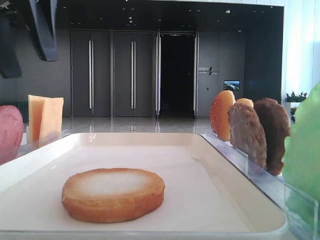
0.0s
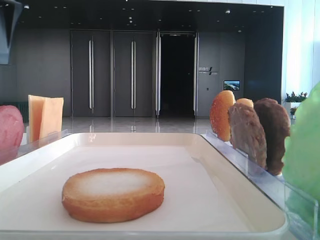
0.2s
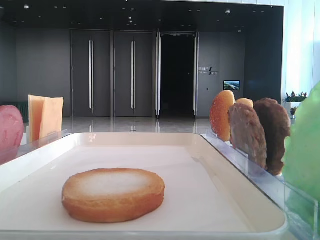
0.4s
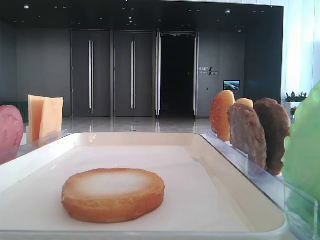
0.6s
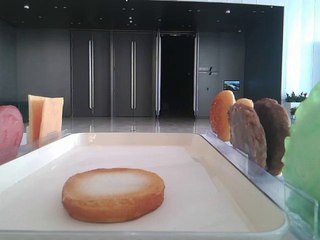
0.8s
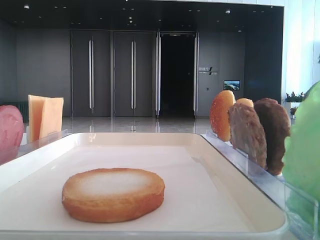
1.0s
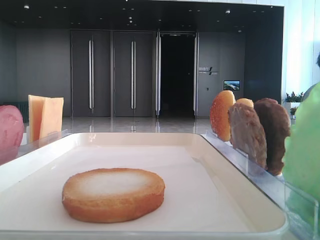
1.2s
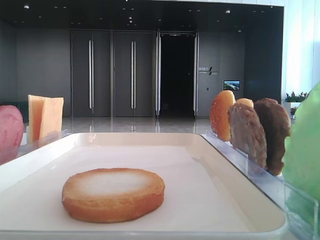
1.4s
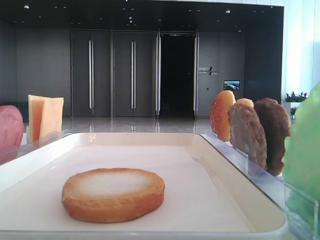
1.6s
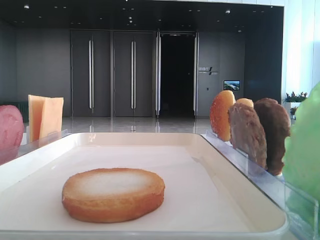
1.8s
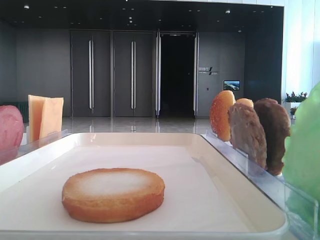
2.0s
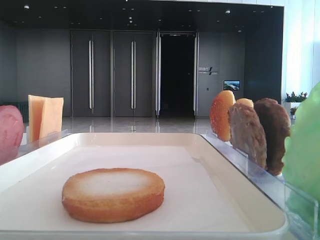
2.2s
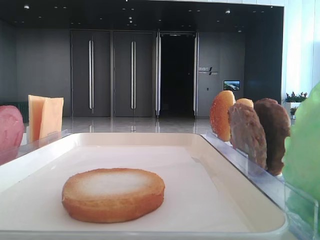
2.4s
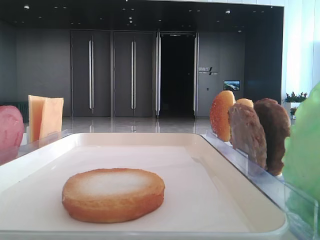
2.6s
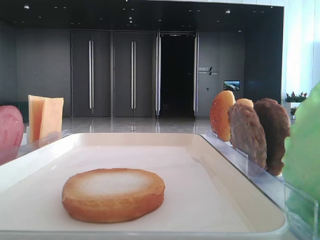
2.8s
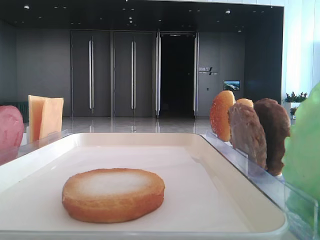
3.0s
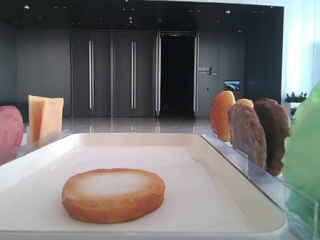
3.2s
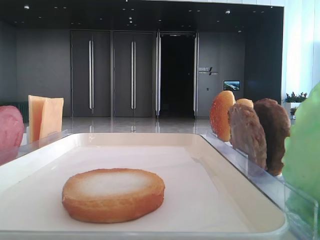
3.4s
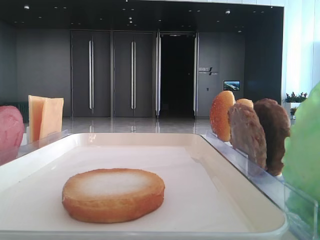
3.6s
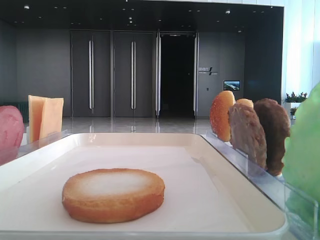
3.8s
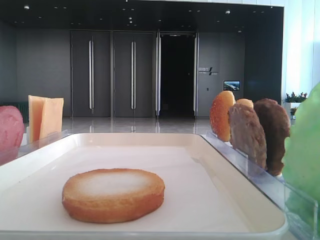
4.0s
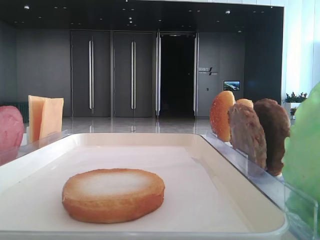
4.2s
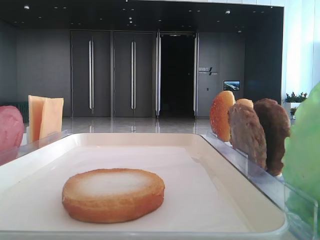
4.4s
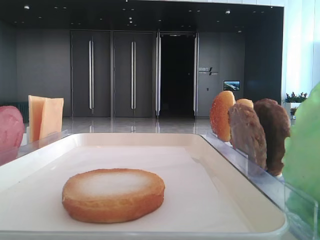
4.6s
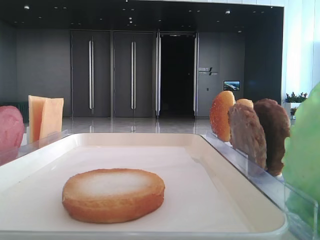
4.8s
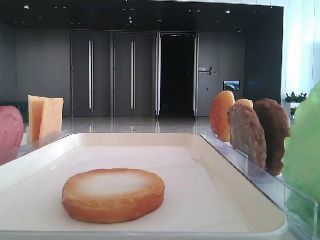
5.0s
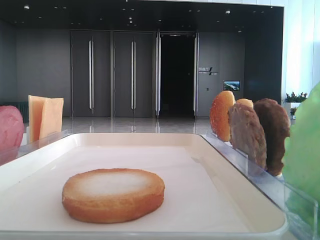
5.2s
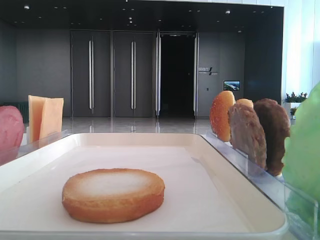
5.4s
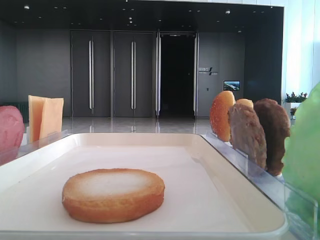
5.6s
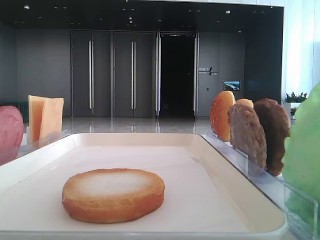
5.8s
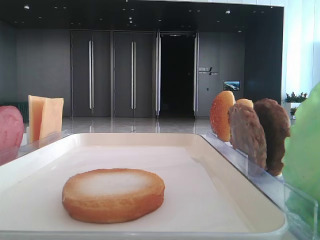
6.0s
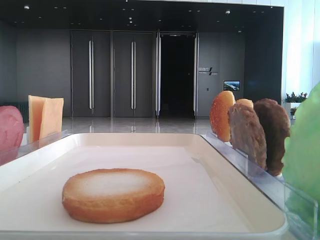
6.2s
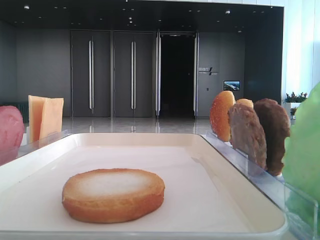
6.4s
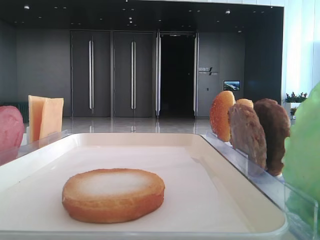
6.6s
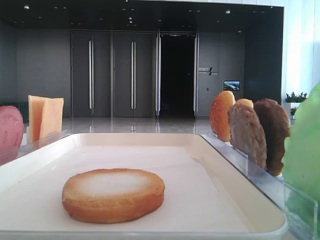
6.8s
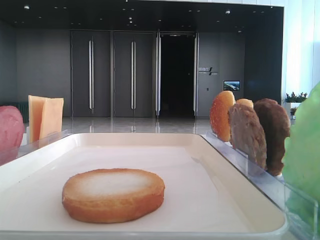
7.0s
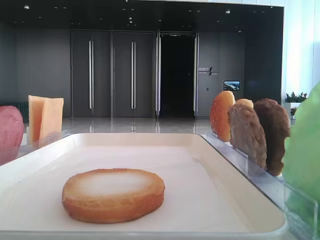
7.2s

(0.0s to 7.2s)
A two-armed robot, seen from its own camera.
0.0s - 1.4s: The left gripper heads to the left, covering some 20 cm.
5.8s - 7.2s: Both grippers stay put.

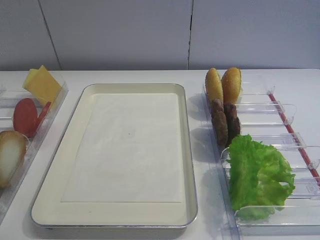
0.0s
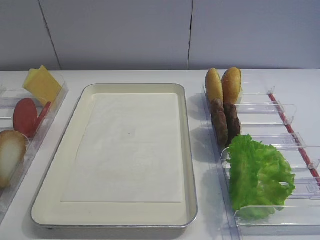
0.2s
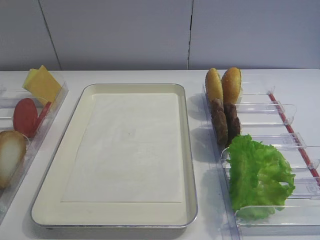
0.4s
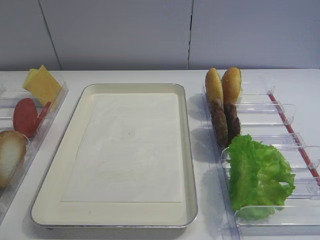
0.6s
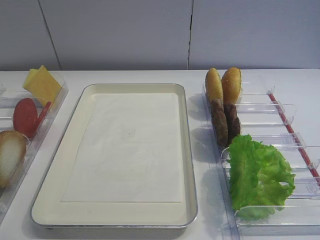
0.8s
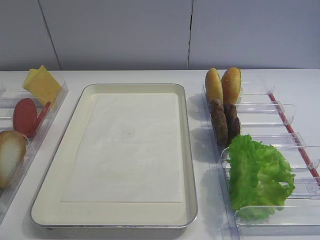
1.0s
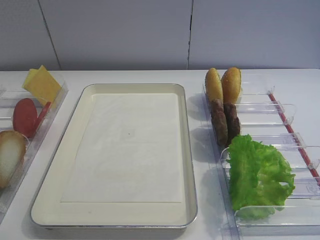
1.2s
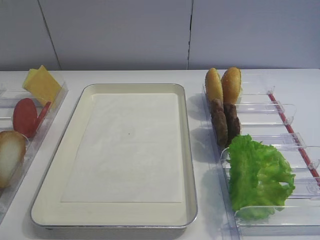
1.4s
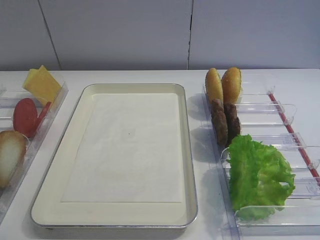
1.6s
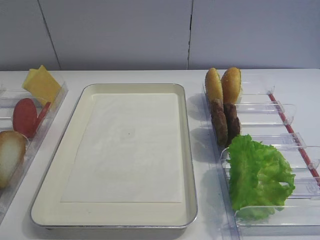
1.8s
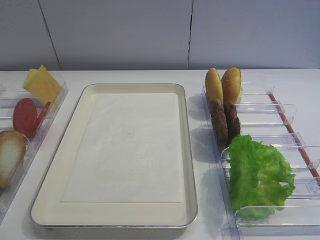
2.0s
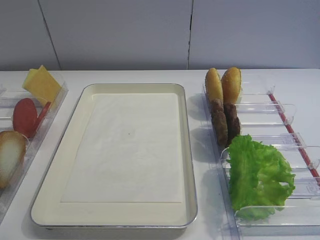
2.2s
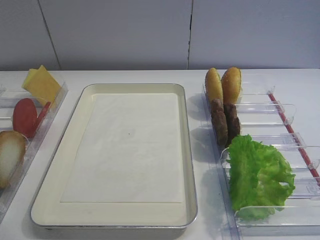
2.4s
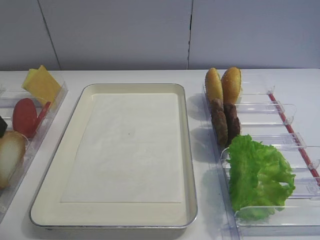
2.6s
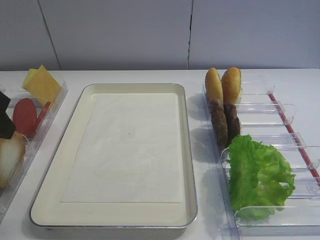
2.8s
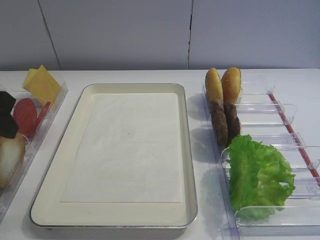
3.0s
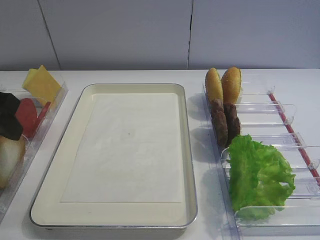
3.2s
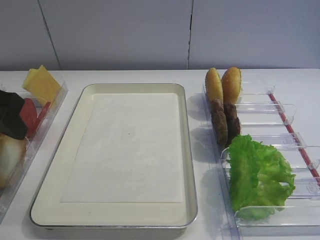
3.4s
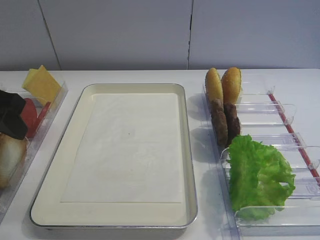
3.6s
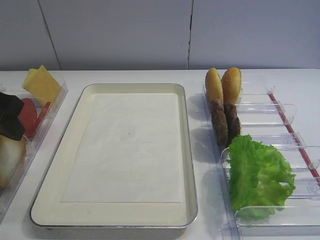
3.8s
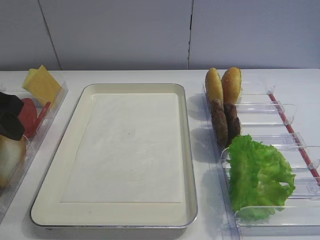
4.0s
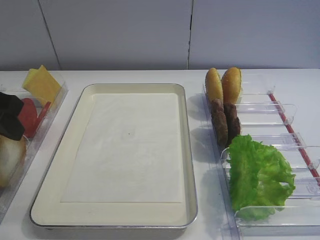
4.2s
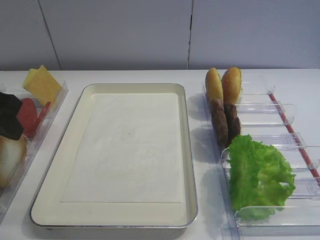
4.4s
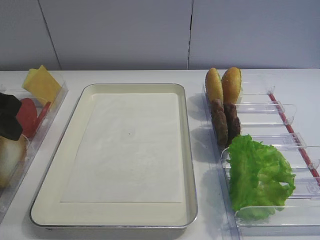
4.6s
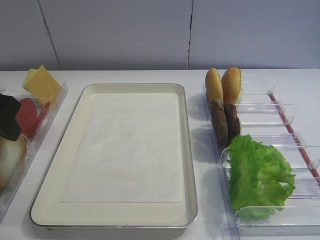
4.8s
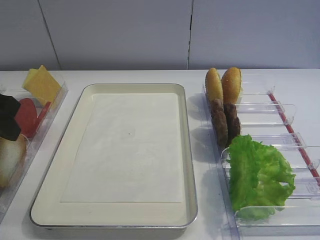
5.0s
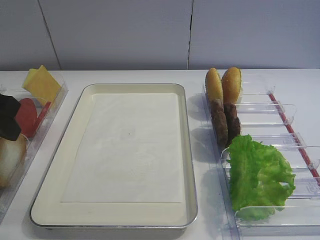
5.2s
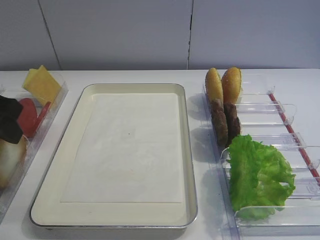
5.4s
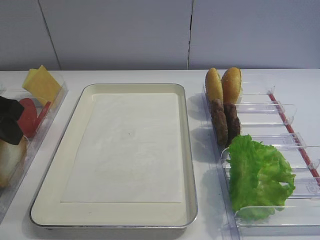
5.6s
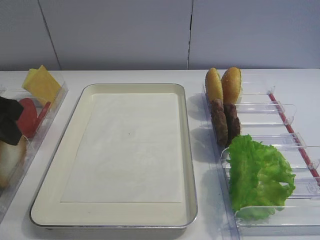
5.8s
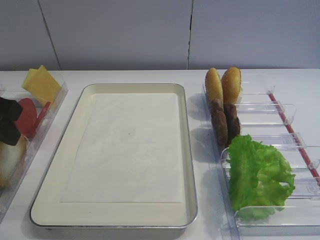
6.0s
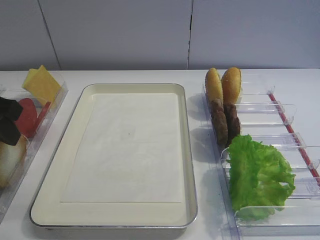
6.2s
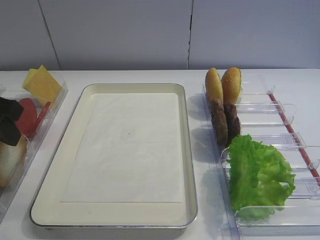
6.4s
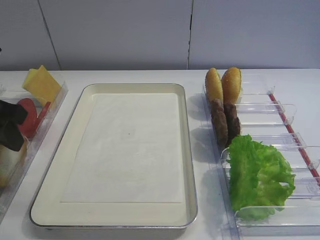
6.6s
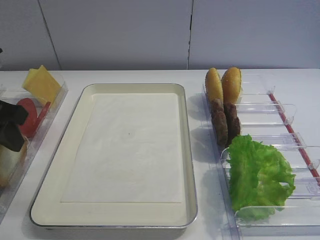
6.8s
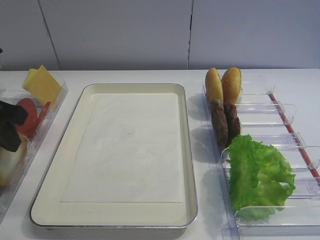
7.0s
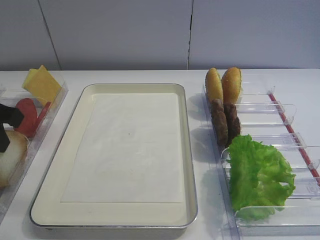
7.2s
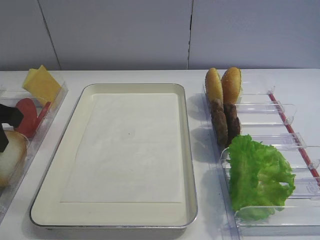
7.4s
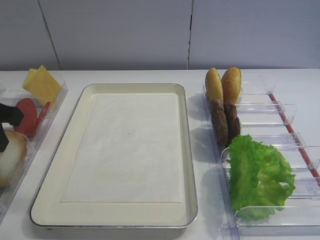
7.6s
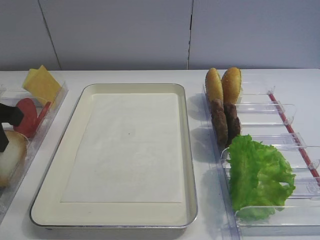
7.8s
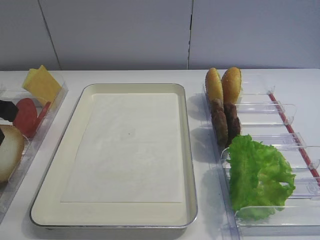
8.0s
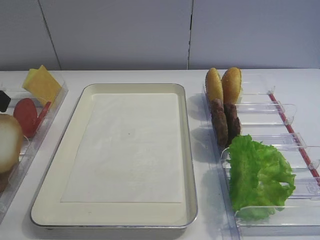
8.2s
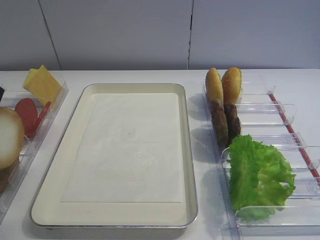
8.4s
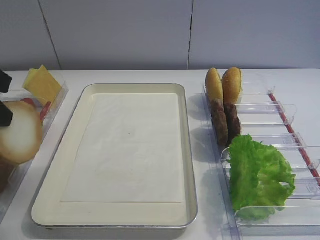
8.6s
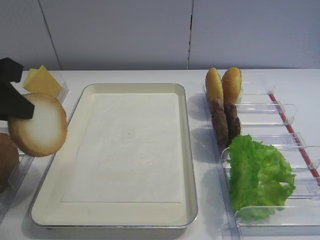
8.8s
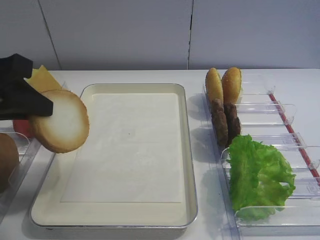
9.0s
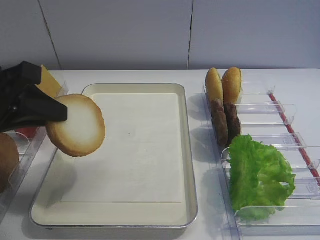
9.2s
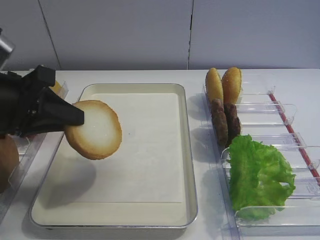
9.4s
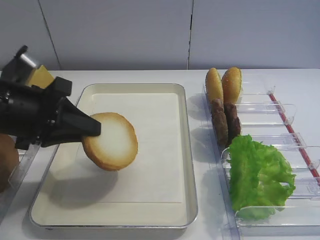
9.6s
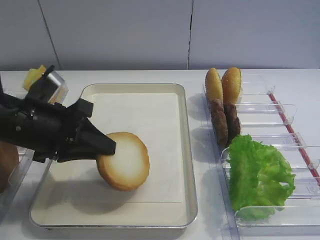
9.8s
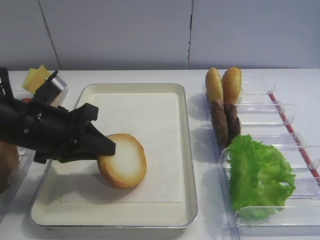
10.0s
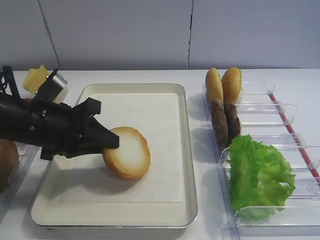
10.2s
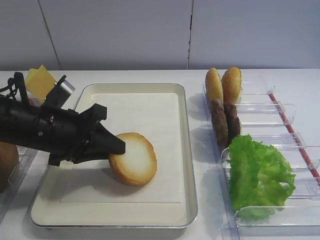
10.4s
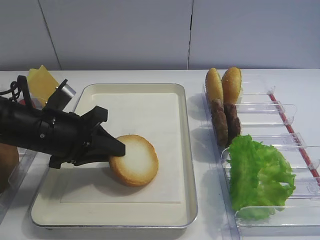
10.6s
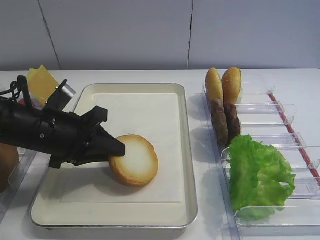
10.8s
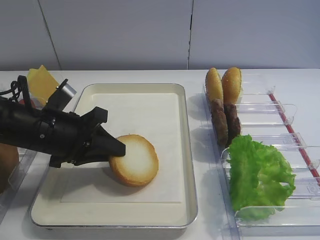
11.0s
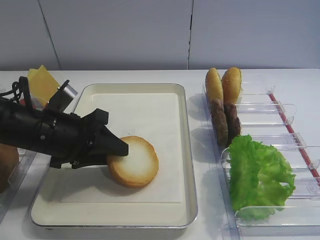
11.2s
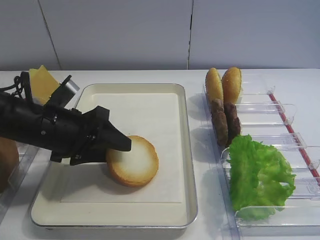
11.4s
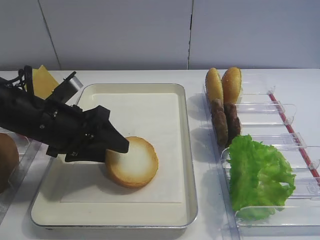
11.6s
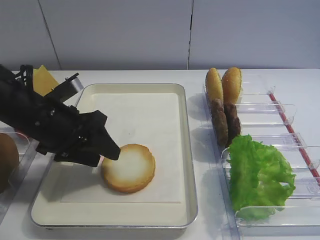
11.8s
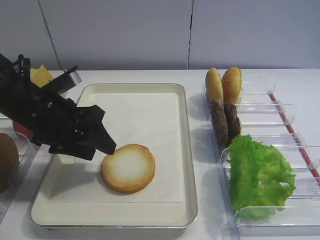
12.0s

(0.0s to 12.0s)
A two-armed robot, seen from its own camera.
1.6s - 3.0s: The left gripper goes some 20 cm forward.
4.4s - 6.0s: Both grippers stay about where they are.
6.0s - 7.6s: The left gripper closes its fingers.
7.6s - 9.0s: The left gripper shifts by about 5 cm.
9.0s - 10.4s: The left gripper shifts roughly 15 cm downward, to the right and forward.
10.4s - 12.0s: The left gripper opens its fingers.

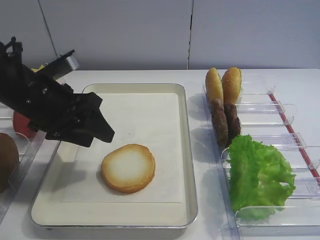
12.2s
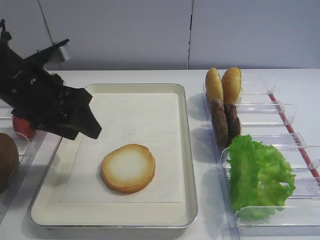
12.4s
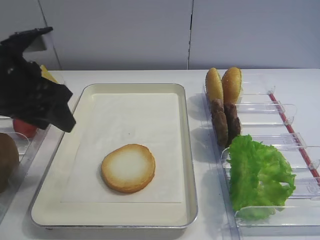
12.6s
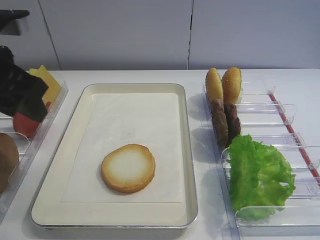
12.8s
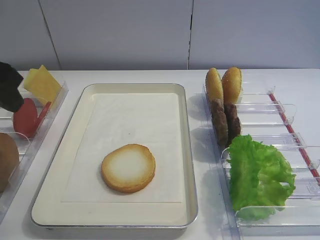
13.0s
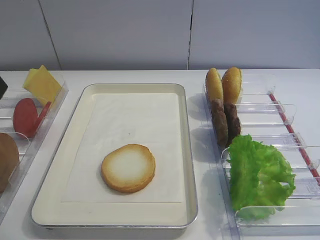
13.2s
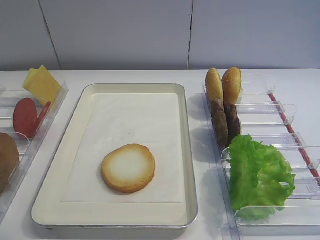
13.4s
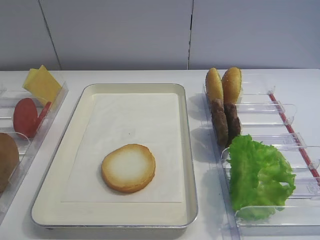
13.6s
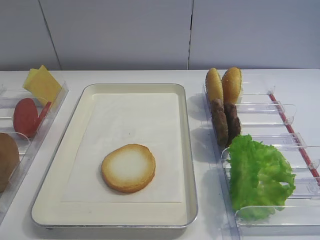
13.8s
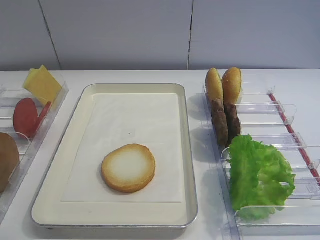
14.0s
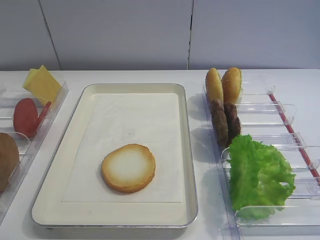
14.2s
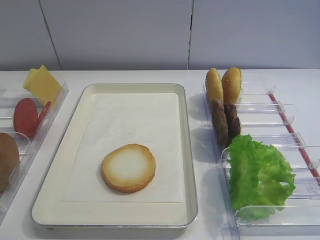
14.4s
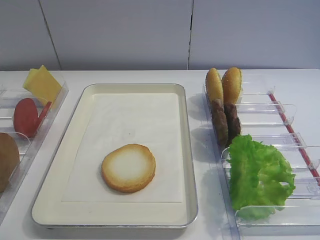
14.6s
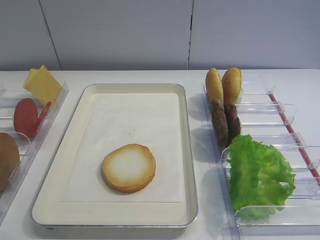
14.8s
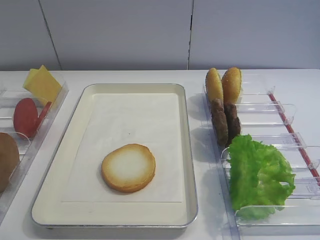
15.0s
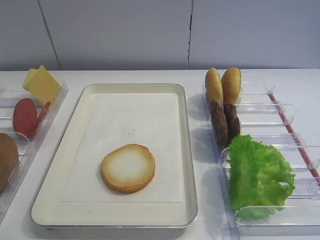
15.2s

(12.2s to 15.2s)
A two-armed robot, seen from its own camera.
12.2s - 13.8s: The left gripper shifts roughly 25 cm backward, upward and to the left.
